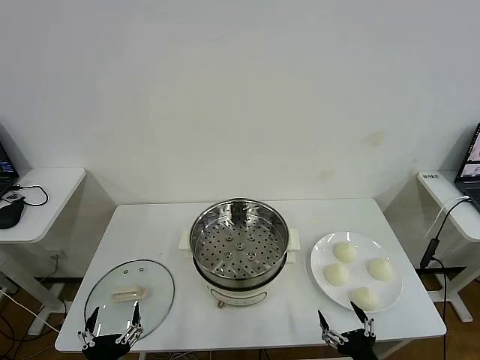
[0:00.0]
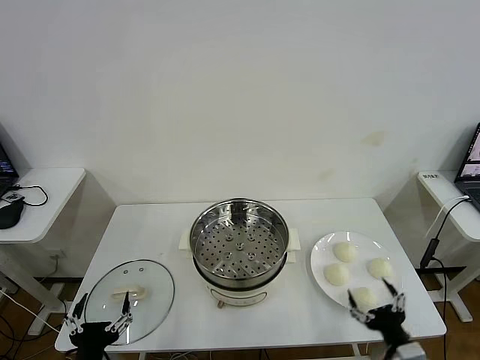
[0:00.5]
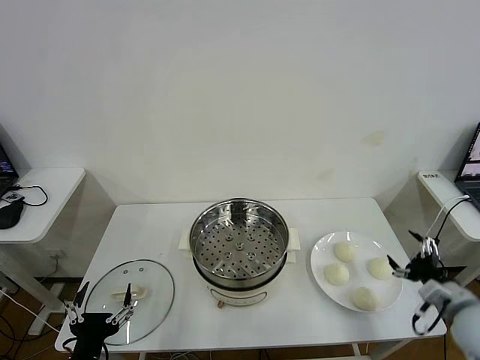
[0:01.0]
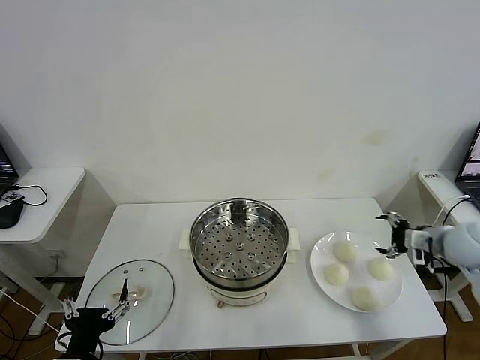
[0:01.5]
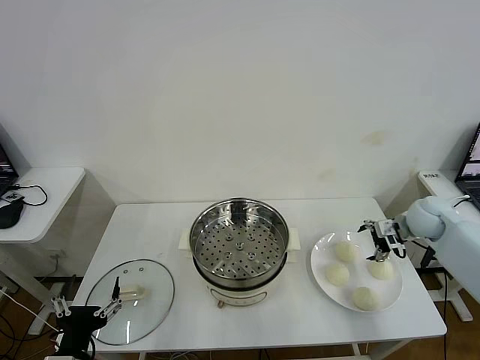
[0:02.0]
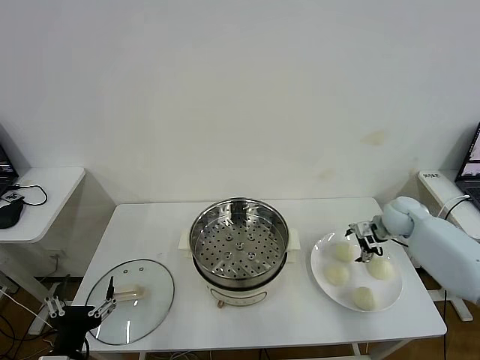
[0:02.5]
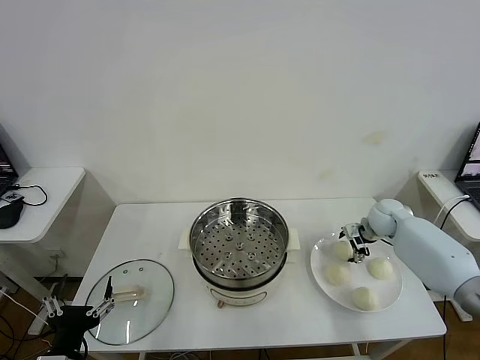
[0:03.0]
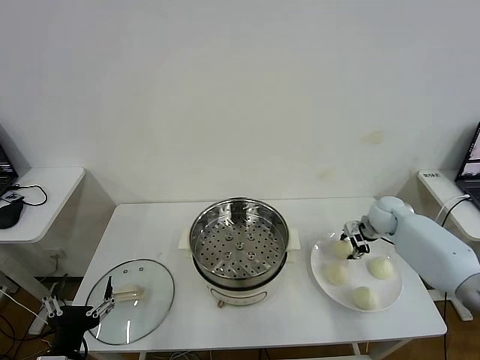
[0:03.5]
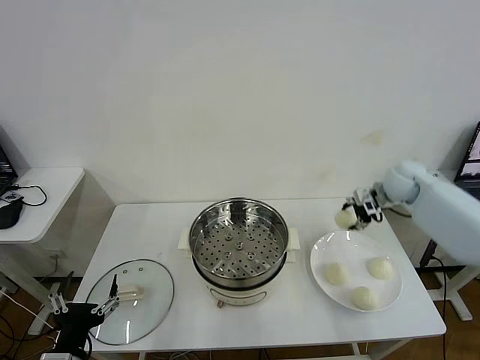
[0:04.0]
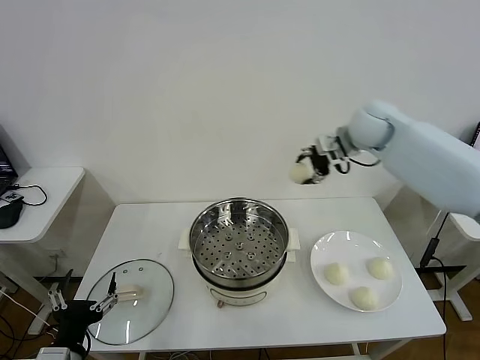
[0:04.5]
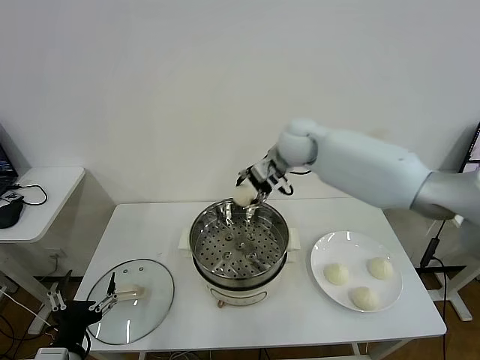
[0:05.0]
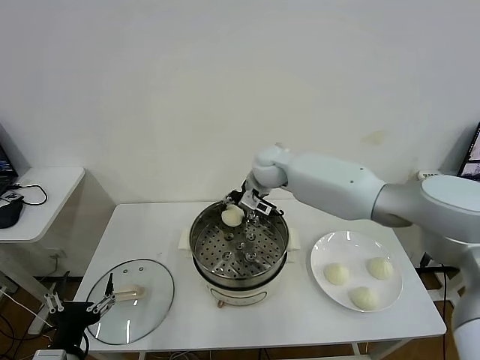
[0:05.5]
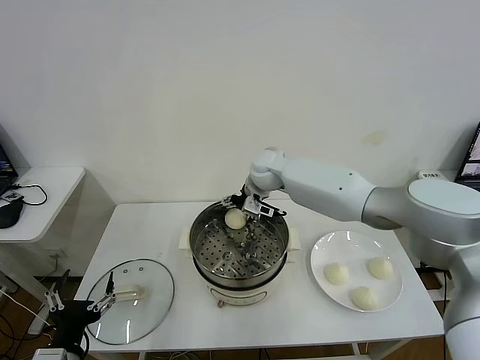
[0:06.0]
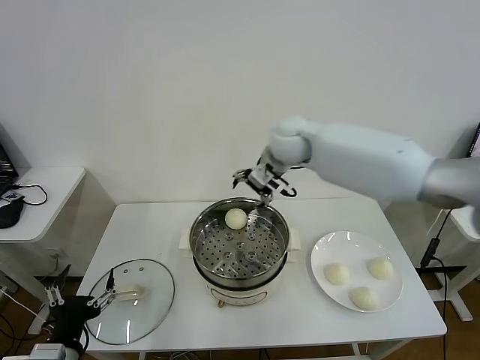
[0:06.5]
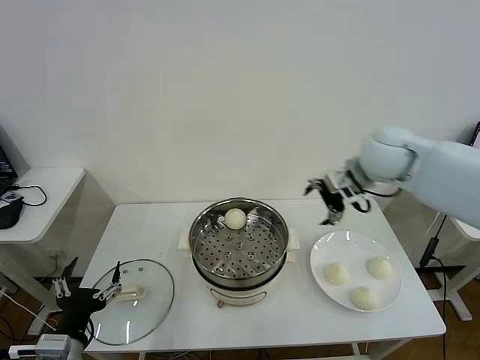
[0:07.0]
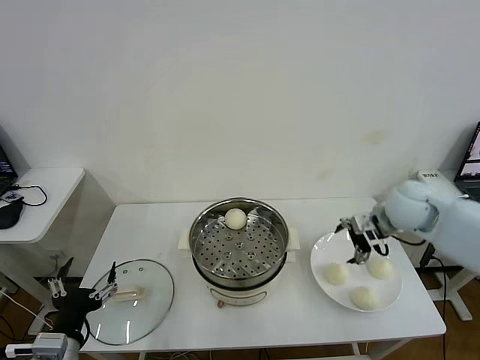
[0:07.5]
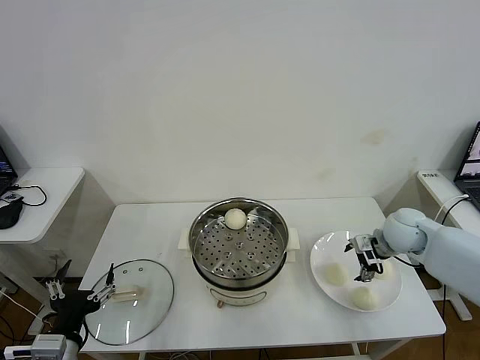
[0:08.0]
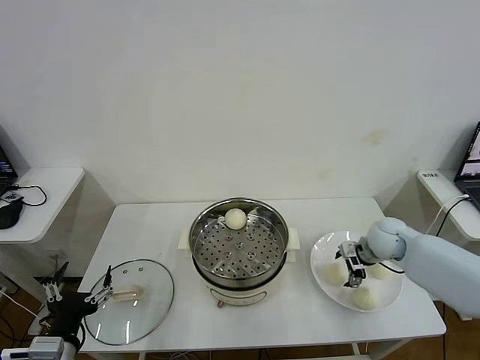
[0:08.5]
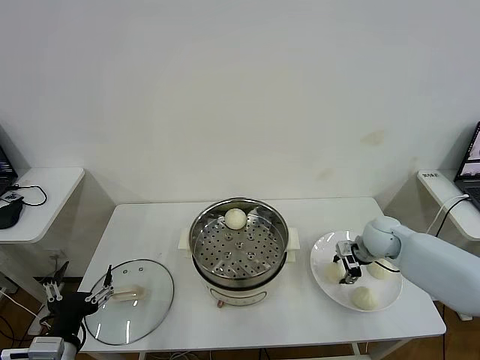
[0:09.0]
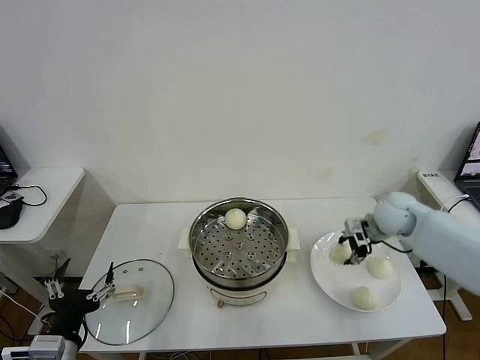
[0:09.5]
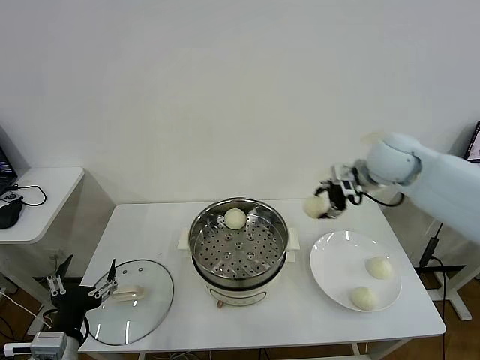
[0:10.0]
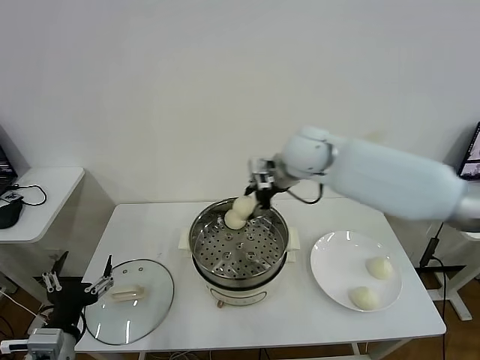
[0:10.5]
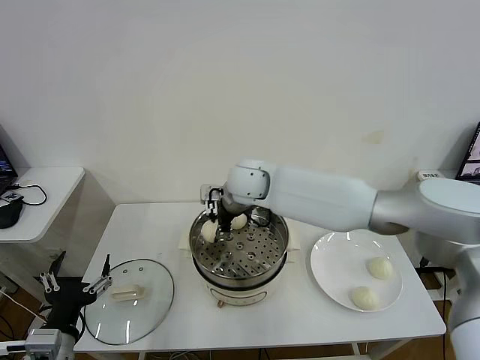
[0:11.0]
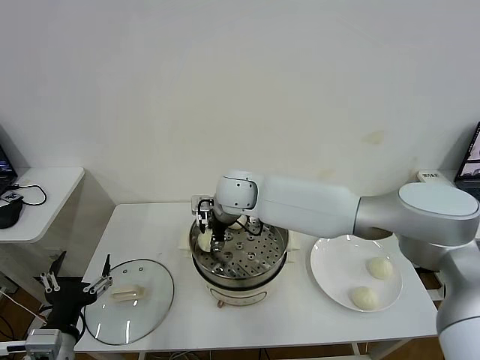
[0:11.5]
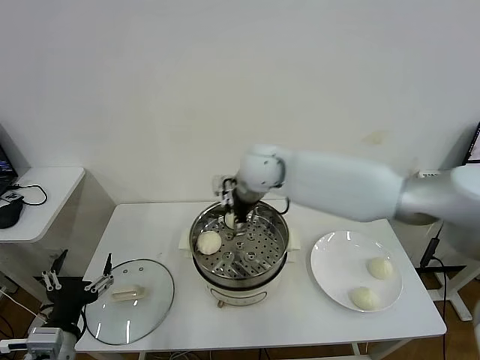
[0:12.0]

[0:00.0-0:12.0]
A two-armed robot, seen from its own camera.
Task of the whole recording: take steamed baozi put them in steamer then cover it.
Step, 0:00.0 to 0:03.0: Grasp the baozi in the plate with right gripper.
Step, 0:03.5 to 0:06.0: Place the baozi on the steamer with right gripper.
Step, 0:06.5 to 0:09.0: Grasp the baozi in the plate with right gripper.
Step, 0:09.5 to 0:11.5: Place the baozi on the steamer with right gripper.
0:02.0 to 0:04.0: The right gripper shifts approximately 10 cm forward, upward and to the left, and closes up.
0:04.0 to 0:06.0: The right gripper goes some 35 cm to the left, and opens.
0:06.0 to 0:08.0: The right gripper heads to the right and backward, covering roughly 35 cm.
0:08.0 to 0:10.0: The right gripper goes approximately 20 cm upward and to the left, and closes up.
0:10.0 to 0:12.0: The right gripper shifts roughly 25 cm to the left, and opens.

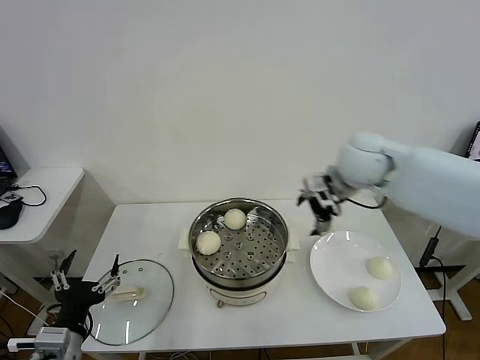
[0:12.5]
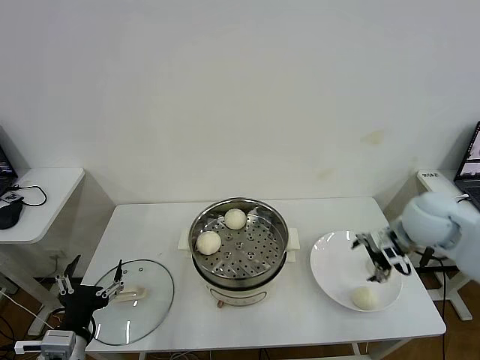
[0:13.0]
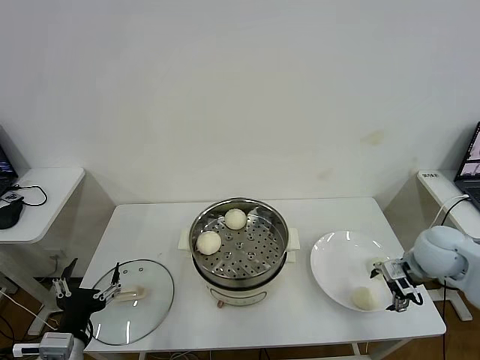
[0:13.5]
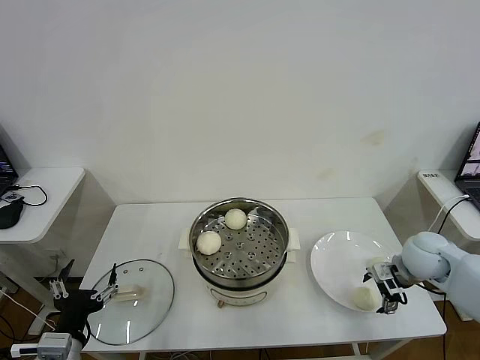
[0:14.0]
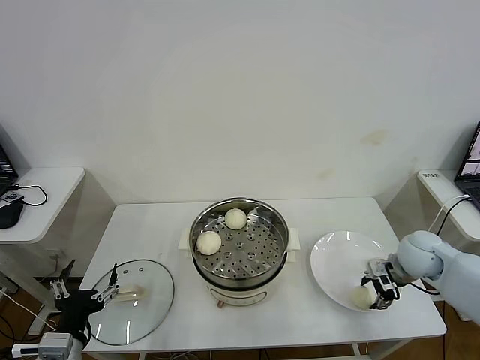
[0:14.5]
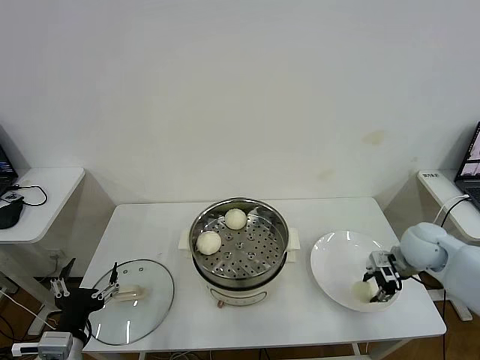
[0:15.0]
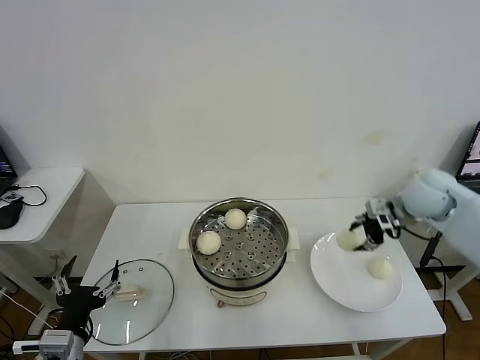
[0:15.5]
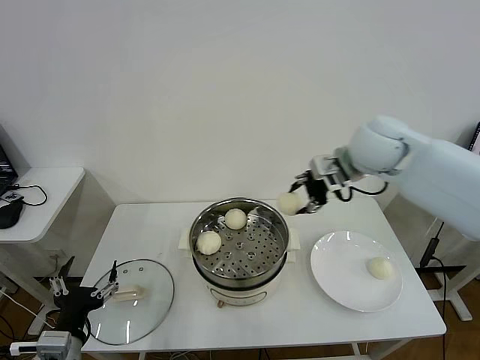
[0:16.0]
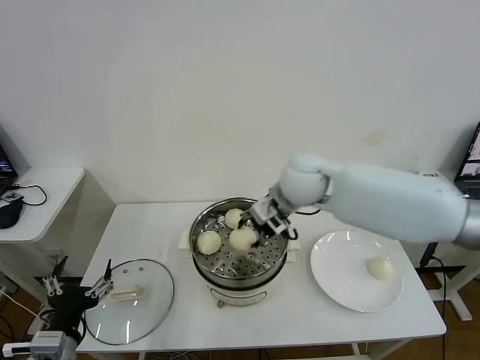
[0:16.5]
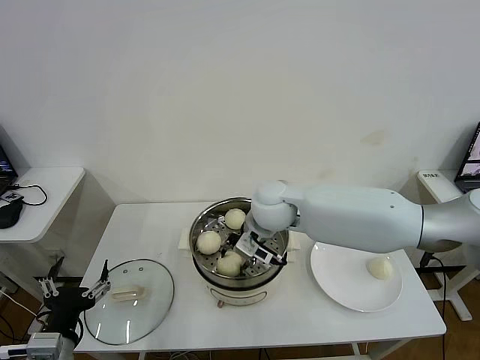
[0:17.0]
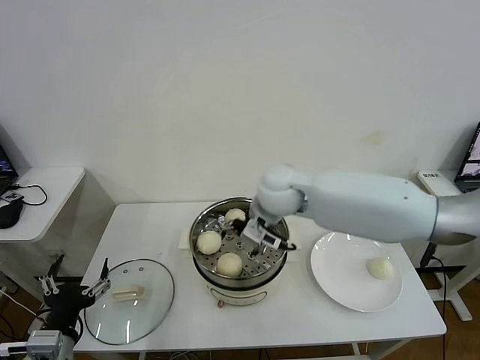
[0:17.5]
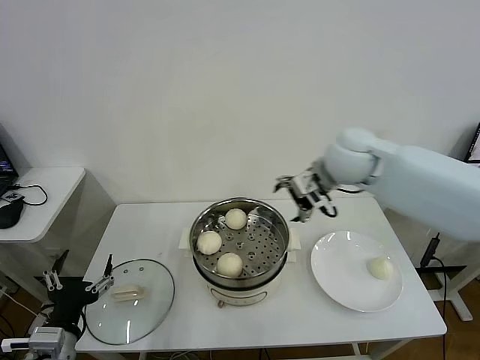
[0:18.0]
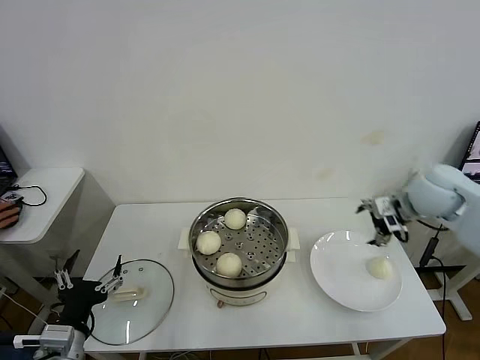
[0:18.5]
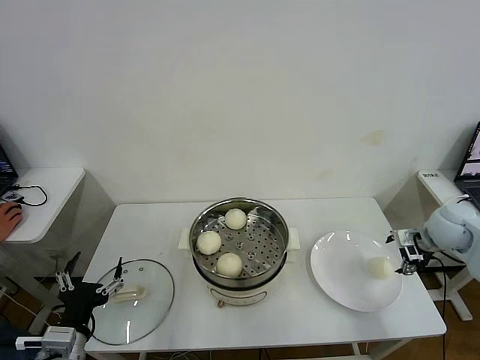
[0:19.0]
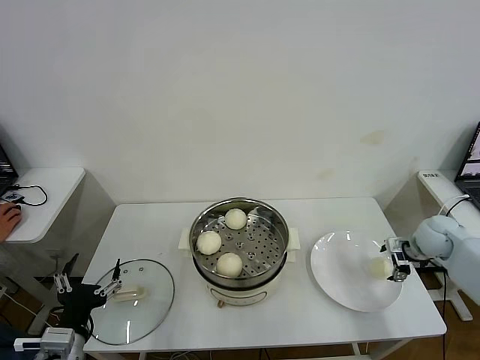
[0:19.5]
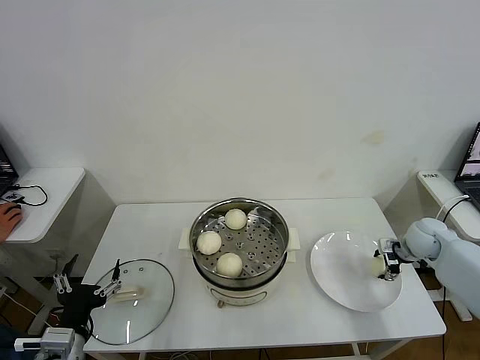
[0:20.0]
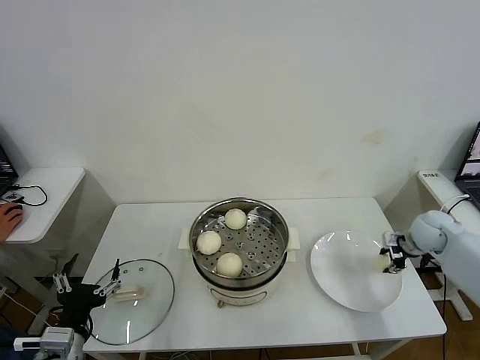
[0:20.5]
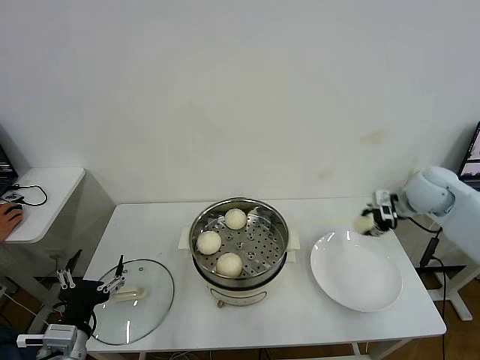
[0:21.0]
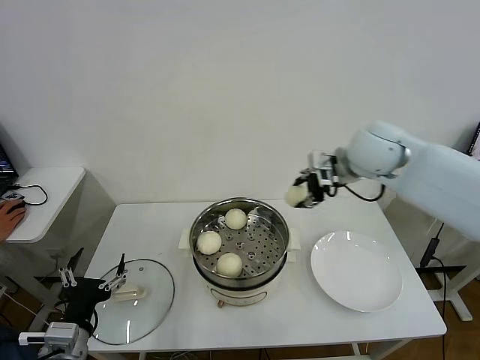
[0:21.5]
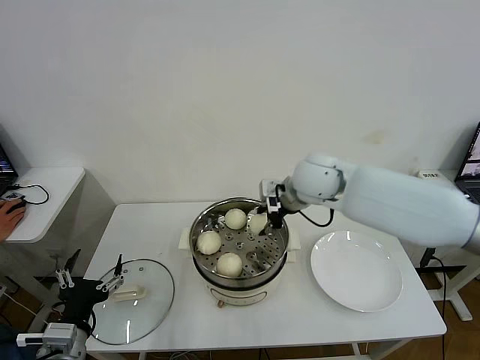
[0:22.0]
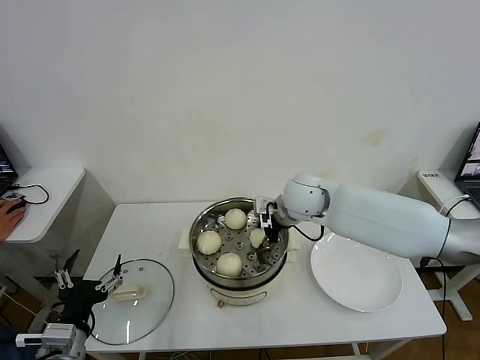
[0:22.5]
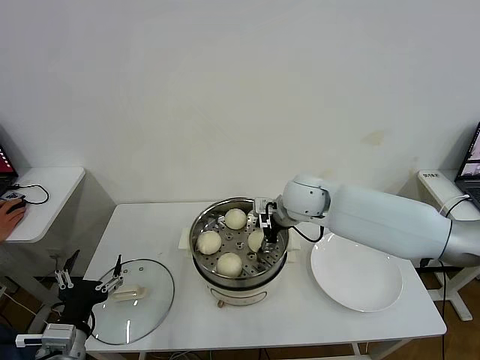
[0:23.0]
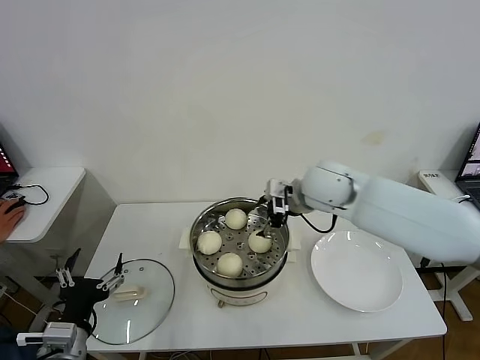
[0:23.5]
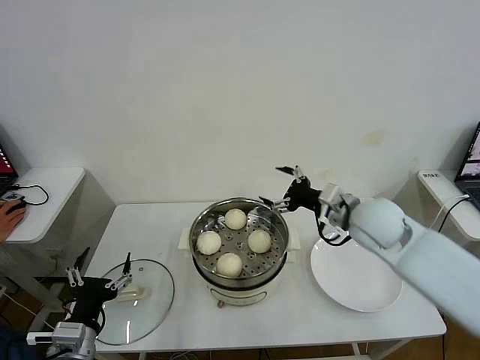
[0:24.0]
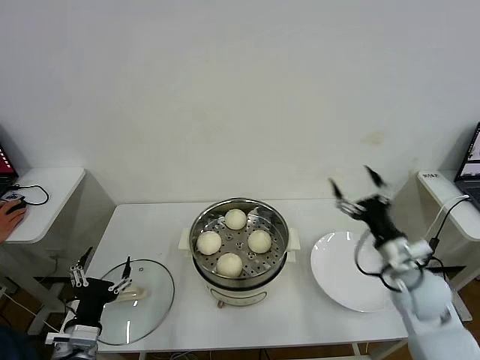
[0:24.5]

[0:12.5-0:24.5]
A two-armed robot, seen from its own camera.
Task of the whole recording: take steamed baozi put them in steamer then cover it.
Step, 0:12.5 to 0:14.5: Grasp the baozi in the plate with right gripper.
Step, 0:15.0 to 0:17.0: Place the baozi on the steamer with right gripper.
Step, 0:17.5 to 0:20.0: Grasp the baozi in the plate with right gripper.
Step, 0:20.5 to 0:23.0: Place the baozi on the steamer with right gripper.
0:12.5 to 0:14.5: The right gripper shifts roughly 25 cm downward and to the right, and closes up.
0:14.5 to 0:16.5: The right gripper heads to the left and upward, covering about 30 cm.
0:16.5 to 0:18.5: The right gripper goes approximately 25 cm to the right, and opens.
0:18.5 to 0:20.5: The right gripper heads downward and to the right, covering approximately 20 cm, and closes its fingers.
0:20.5 to 0:22.5: The right gripper moves to the left, about 35 cm.
0:22.5 to 0:24.5: The right gripper heads to the right, backward and downward, covering some 25 cm, and opens.

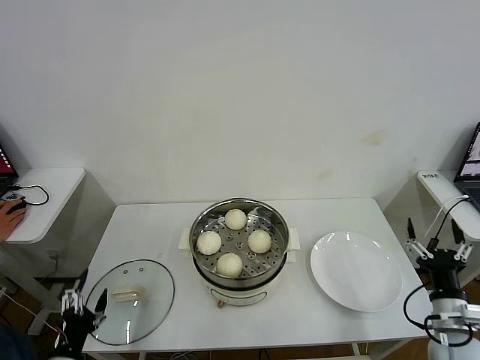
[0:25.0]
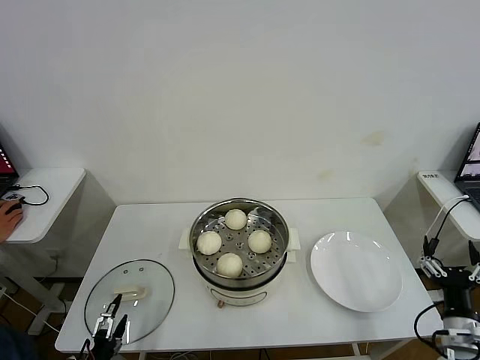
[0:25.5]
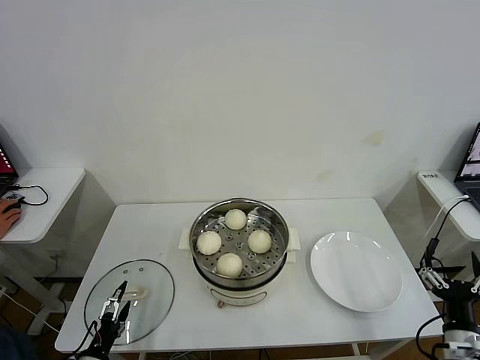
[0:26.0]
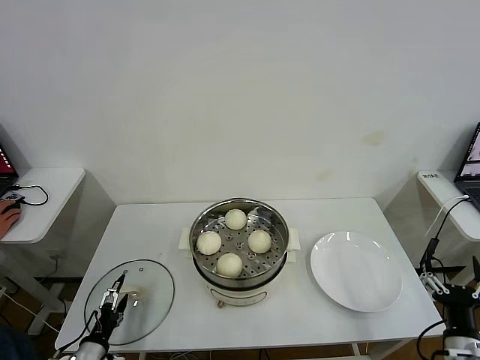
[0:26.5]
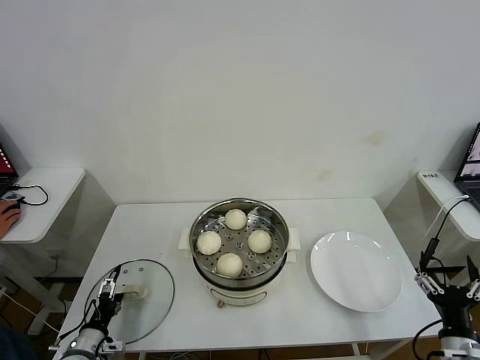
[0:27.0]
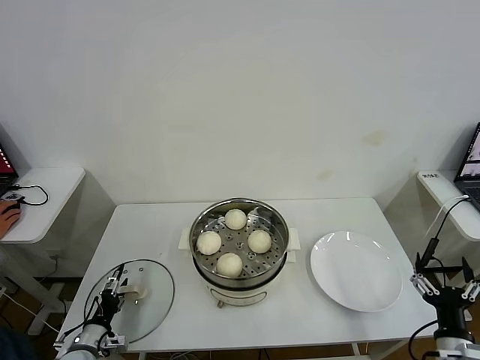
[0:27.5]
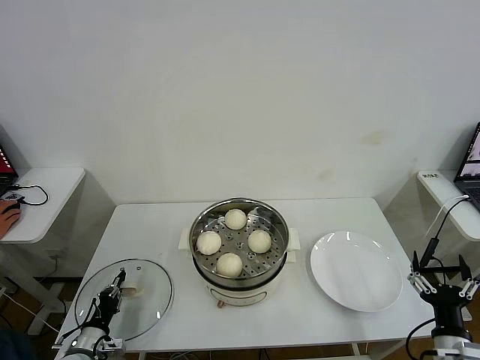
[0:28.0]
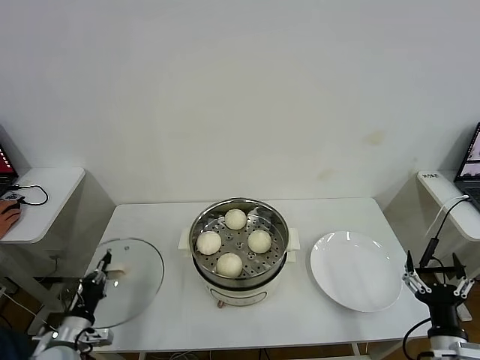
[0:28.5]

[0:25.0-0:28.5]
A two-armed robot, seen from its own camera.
Task of the whole recording: take steamed baozi put them in steamer then cover it.
Step, 0:25.0 to 0:28.0: Grasp the pot lid with left gripper.
0:25.0 to 0:27.0: The left gripper is displaced downward and forward by some 10 cm. Meanwhile the right gripper moves backward, some 5 cm.
0:27.0 to 0:28.5: The left gripper closes up.
